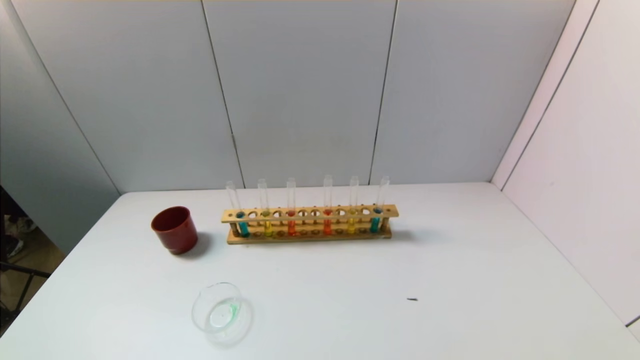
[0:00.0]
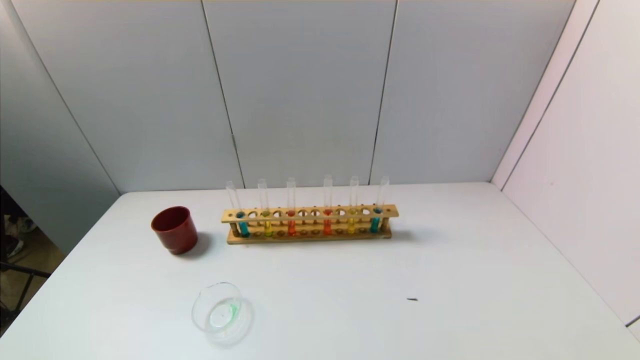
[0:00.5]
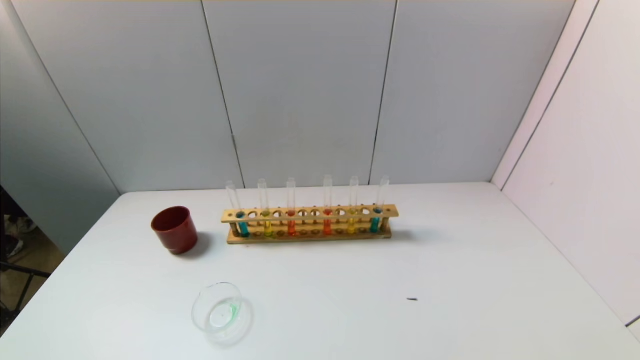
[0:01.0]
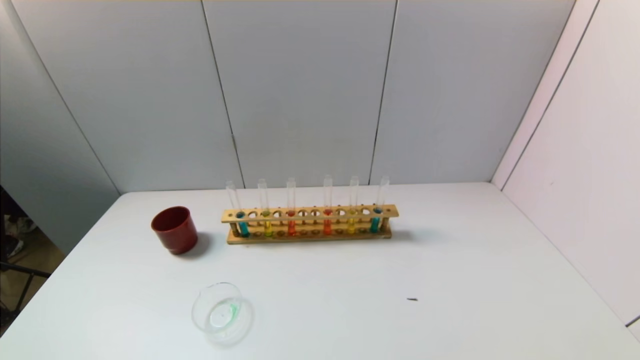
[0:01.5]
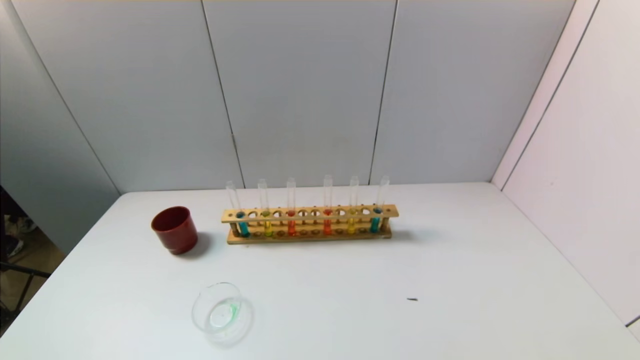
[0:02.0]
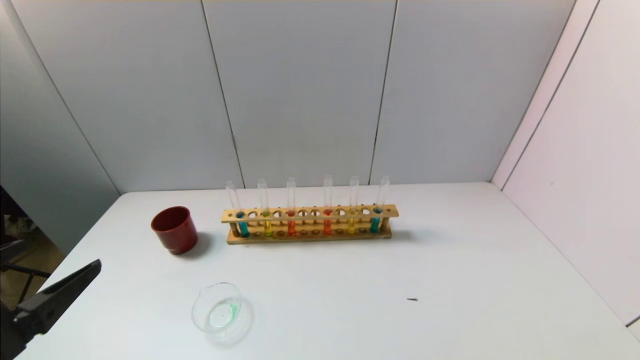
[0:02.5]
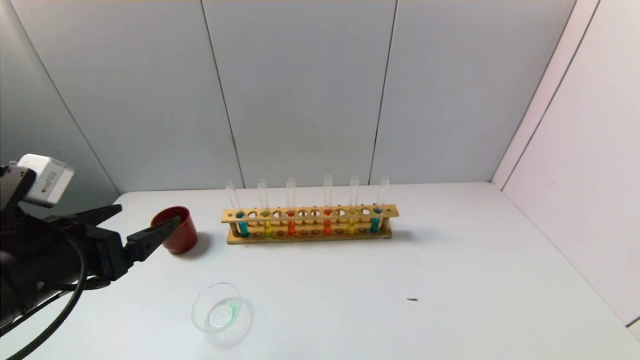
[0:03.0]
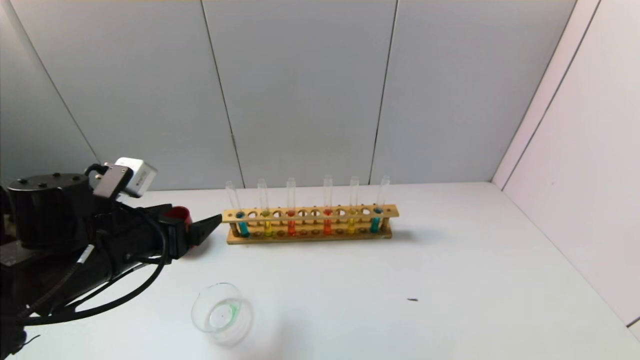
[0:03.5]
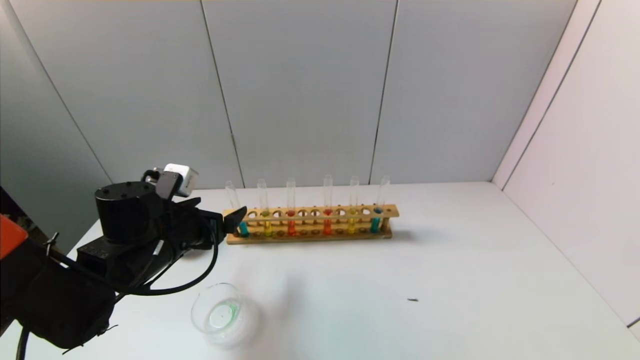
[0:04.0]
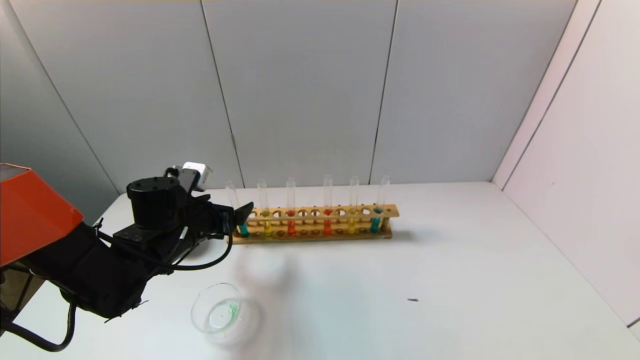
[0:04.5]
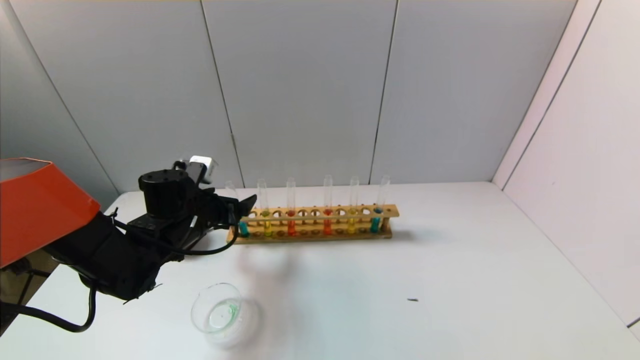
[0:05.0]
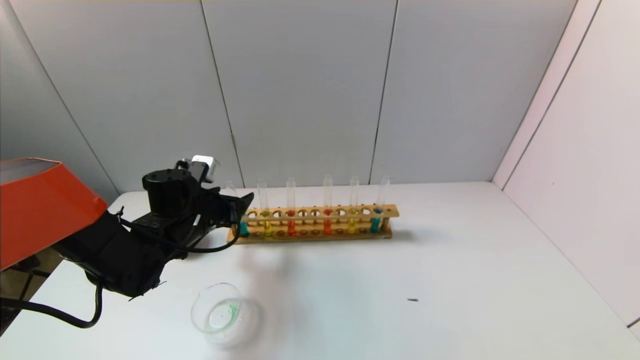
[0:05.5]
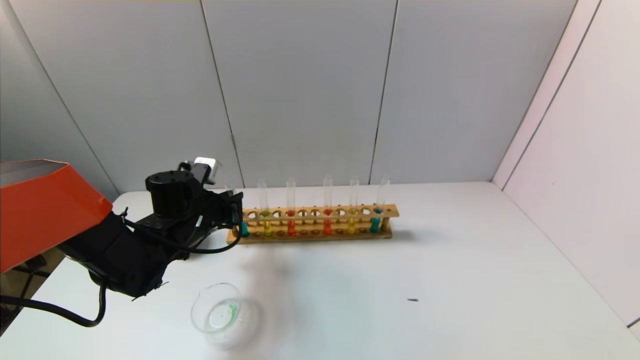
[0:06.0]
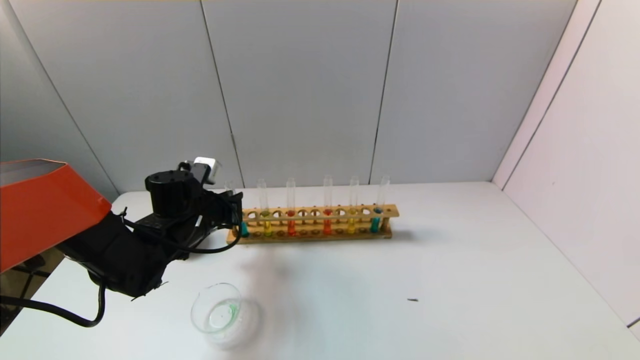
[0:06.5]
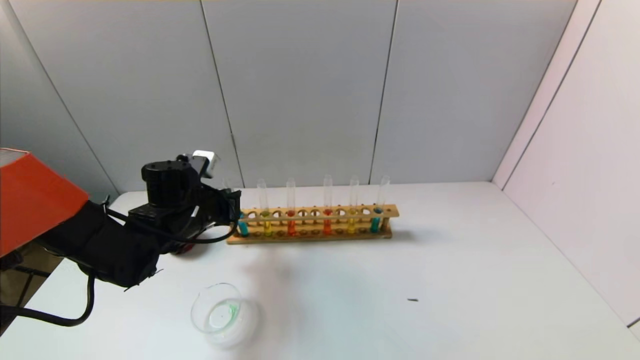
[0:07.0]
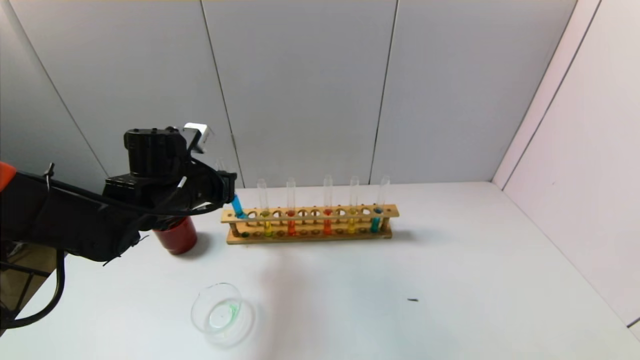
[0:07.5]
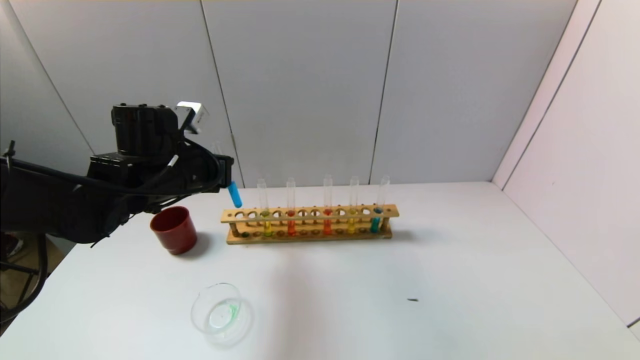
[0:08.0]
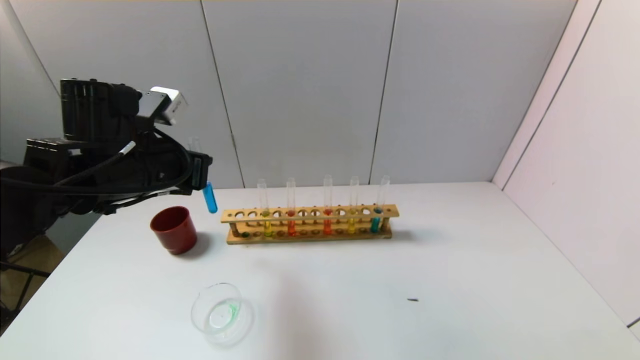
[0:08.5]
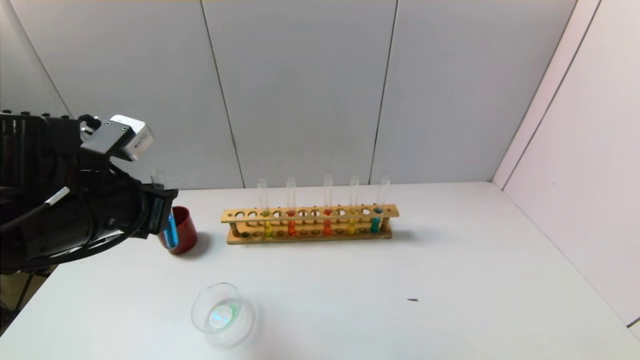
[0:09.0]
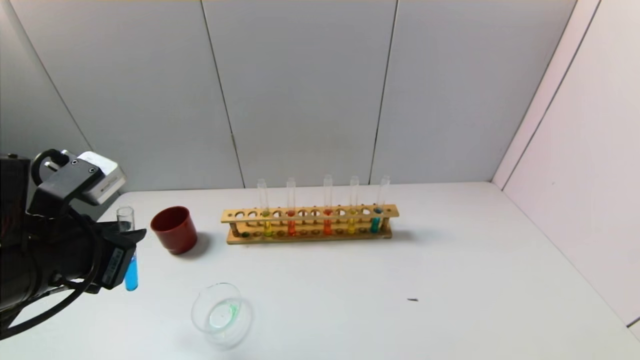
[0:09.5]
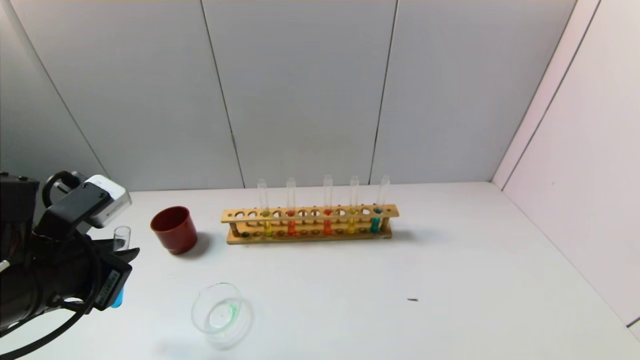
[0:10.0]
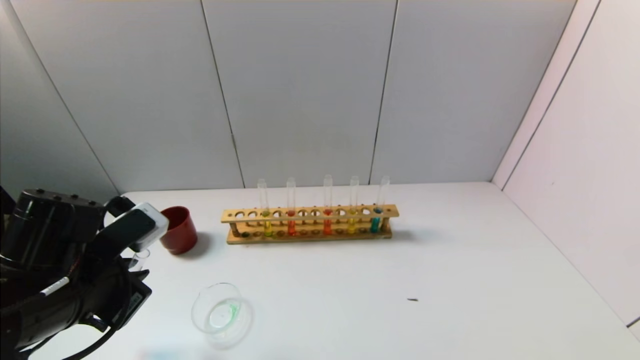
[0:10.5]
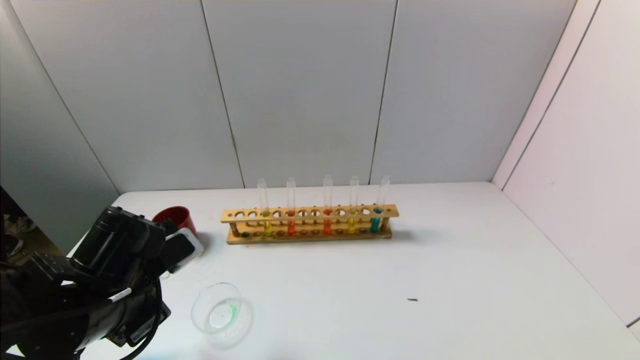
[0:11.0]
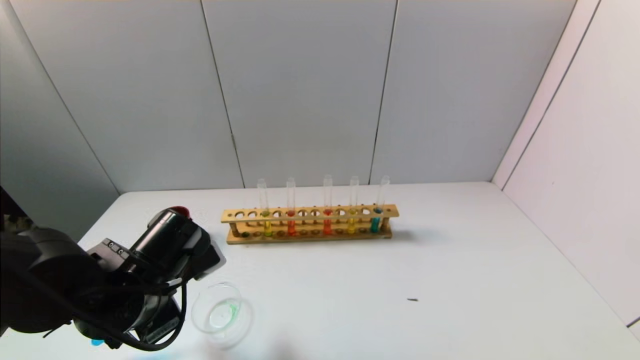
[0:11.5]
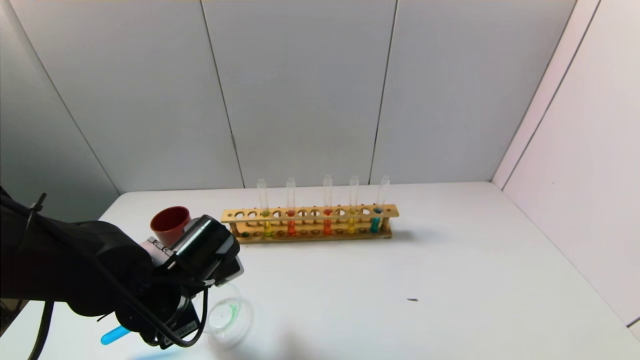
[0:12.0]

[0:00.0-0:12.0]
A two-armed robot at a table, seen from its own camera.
Task of the whole recording: pick up the test tube with yellow pigment and the test tube with blue pigment by grippers and pour them into the beaker.
Step, 0:00.0 to 0:06.0: Grasp the blue reagent with the left gripper.
0:02.0 to 0:04.0: The left gripper travels forward by about 30 cm.
0:04.0 to 0:06.0: The left gripper travels forward by approximately 5 cm, and closes.
0:06.0 to 0:08.0: The left gripper heads upward, covering about 10 cm.
0:08.0 to 0:10.0: The left gripper is displaced backward by roughly 15 cm.
0:10.0 to 0:12.0: The left gripper moves downward, to the right and forward, about 15 cm.

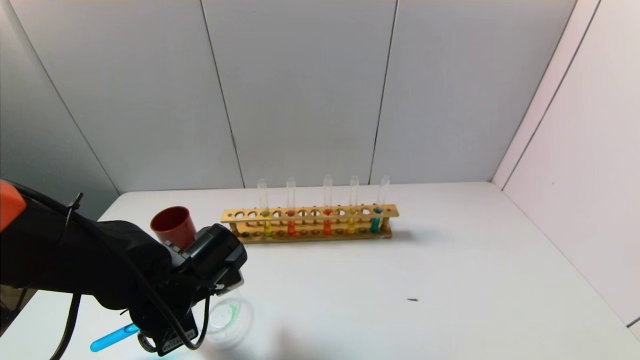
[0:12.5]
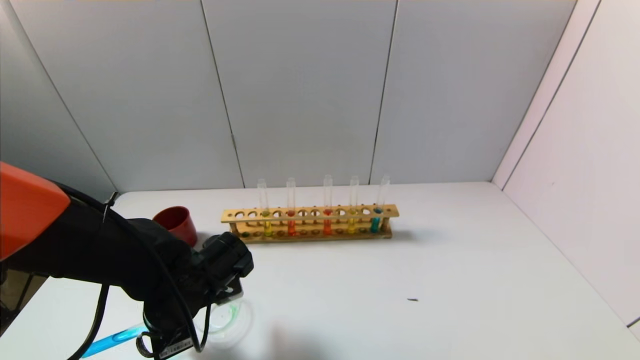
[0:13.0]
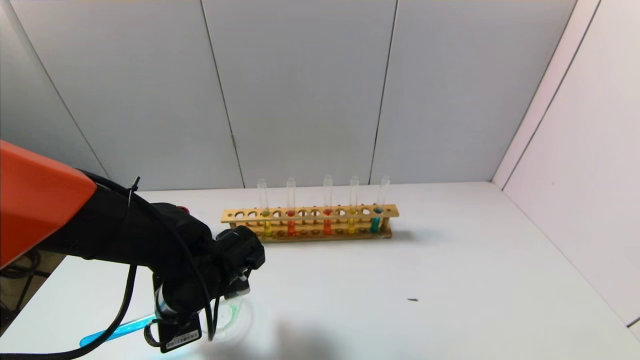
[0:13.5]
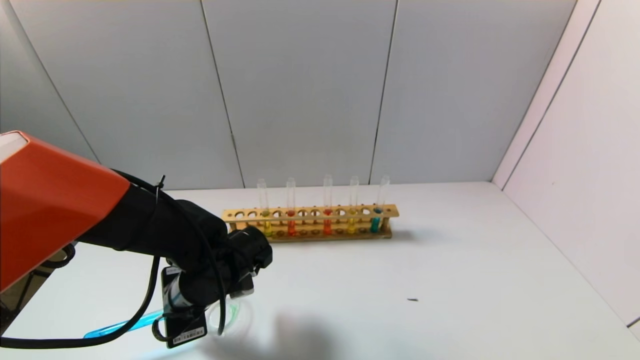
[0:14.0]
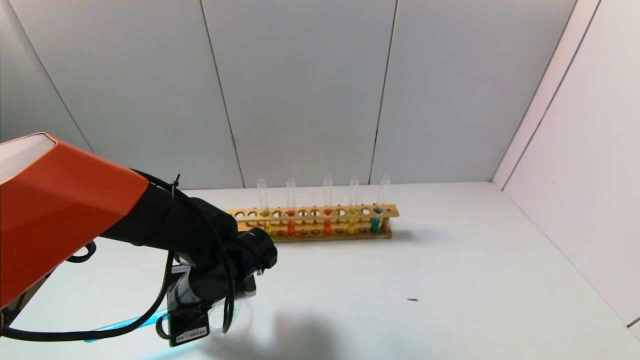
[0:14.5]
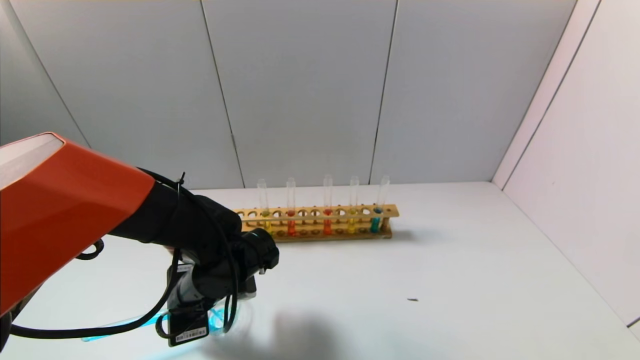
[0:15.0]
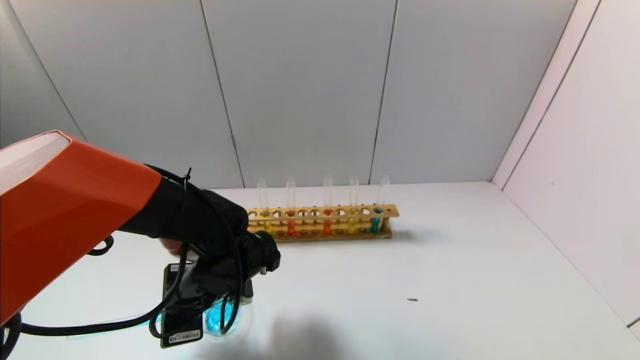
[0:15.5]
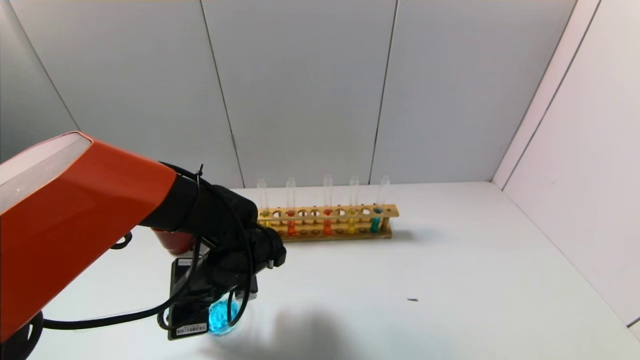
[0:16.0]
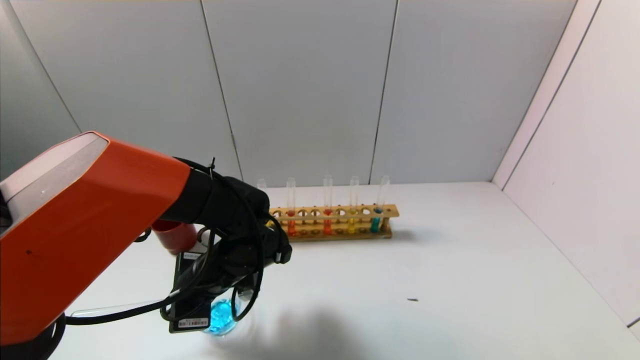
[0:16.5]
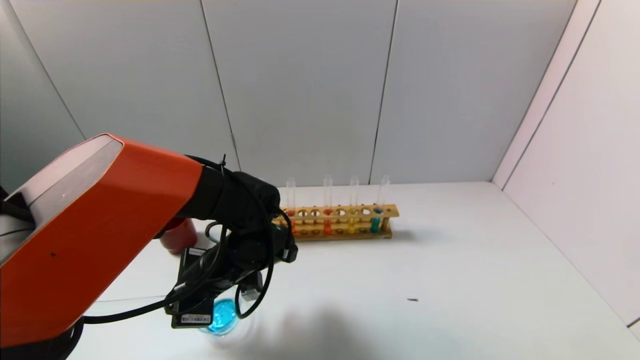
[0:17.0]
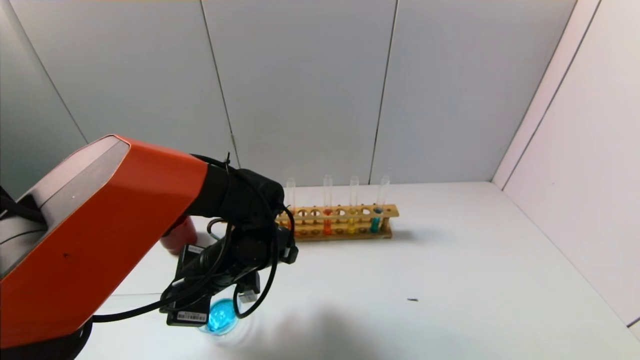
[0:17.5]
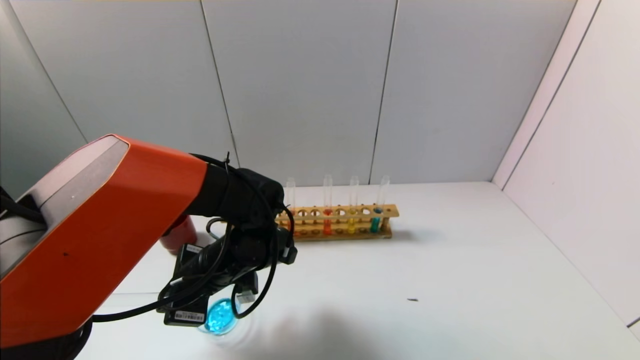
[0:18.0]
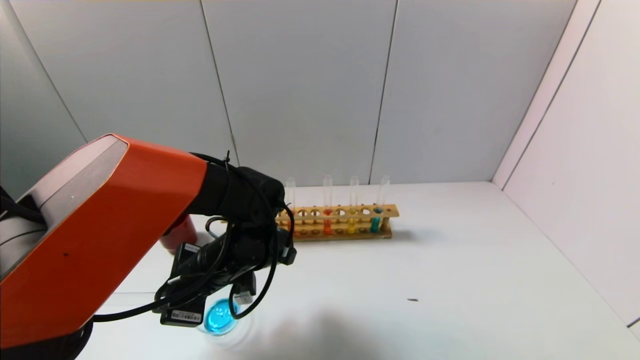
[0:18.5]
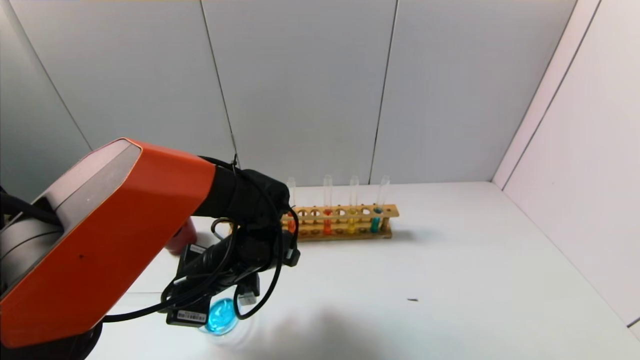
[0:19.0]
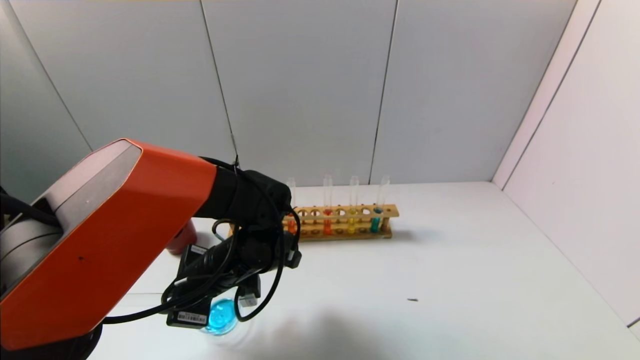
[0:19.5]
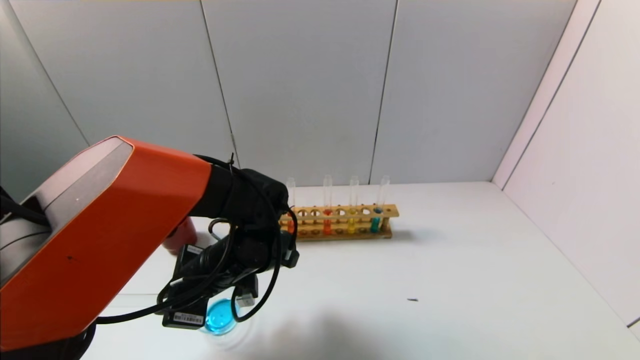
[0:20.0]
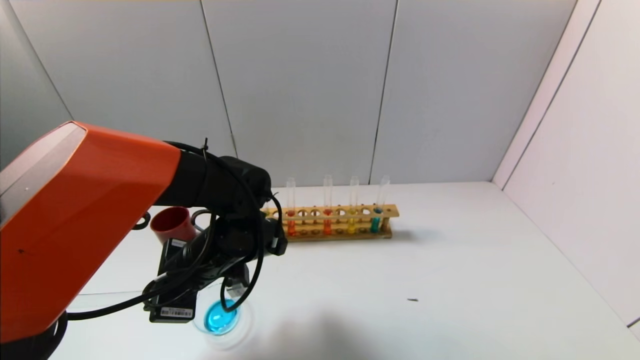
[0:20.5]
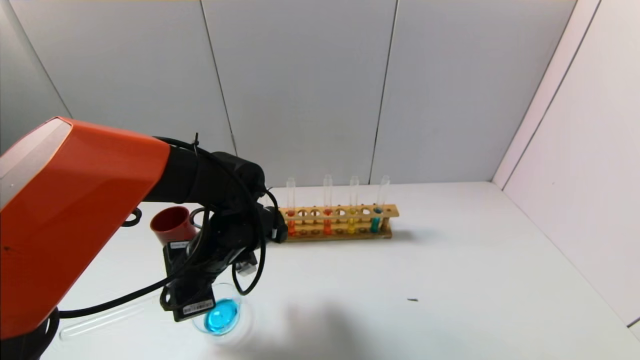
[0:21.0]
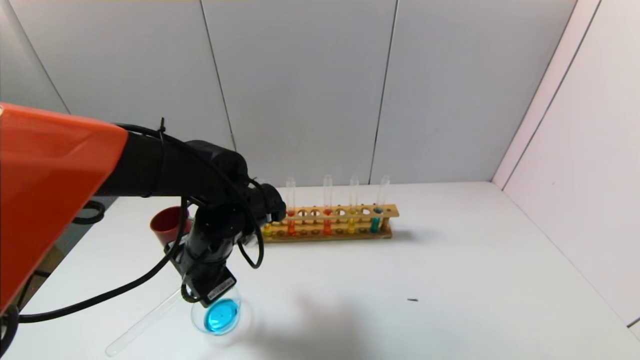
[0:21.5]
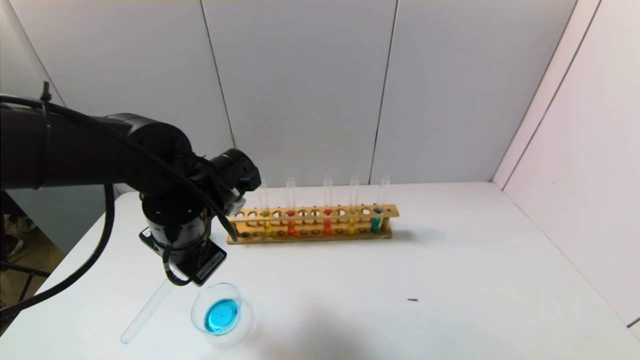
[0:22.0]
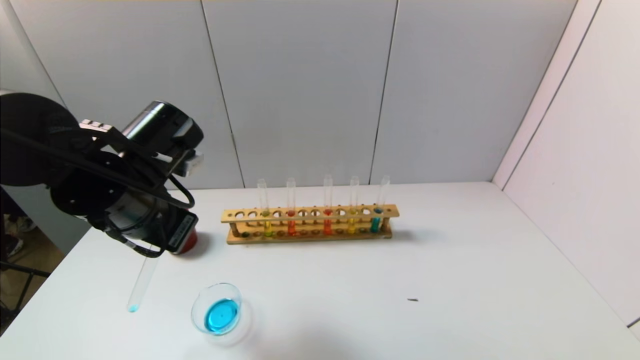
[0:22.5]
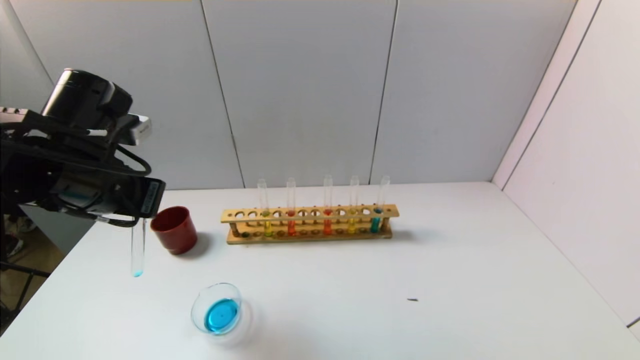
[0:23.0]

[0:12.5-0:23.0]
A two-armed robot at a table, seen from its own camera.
Task of the whole recording: pick up the test tube with yellow pigment and the test tube with blue pigment by grippers and pour them into the beaker.
Step, 0:12.5 to 0:16.5: Pour the blue reagent into the graduated cylinder with the left gripper.
0:12.5 to 0:14.5: The grippers move only a little.
0:14.5 to 0:16.5: The grippers move only a little.
0:16.5 to 0:19.0: The grippers move only a little.
0:21.0 to 0:23.0: The left gripper travels upward and to the left by about 15 cm.
